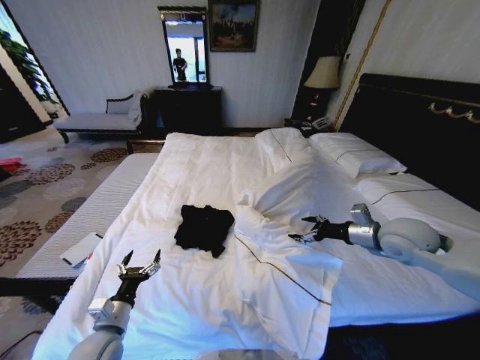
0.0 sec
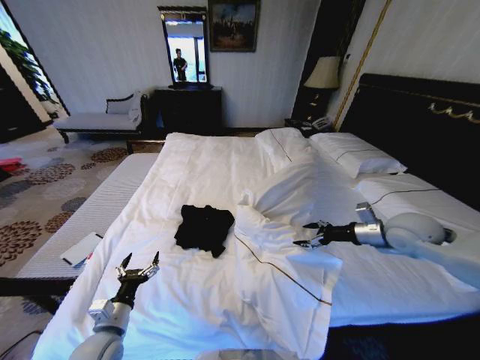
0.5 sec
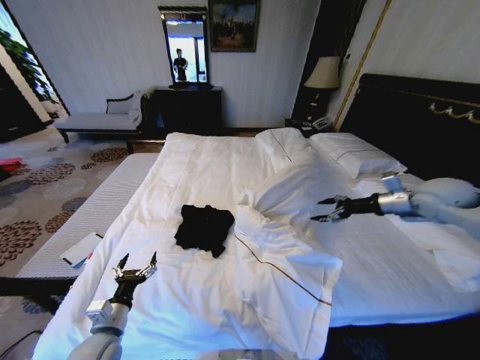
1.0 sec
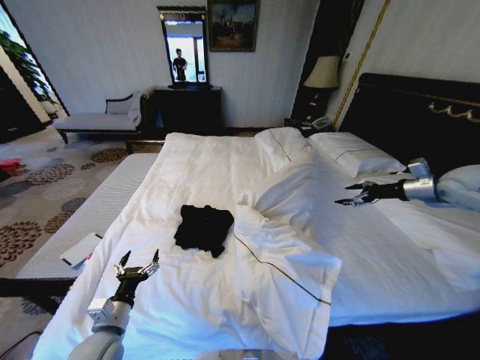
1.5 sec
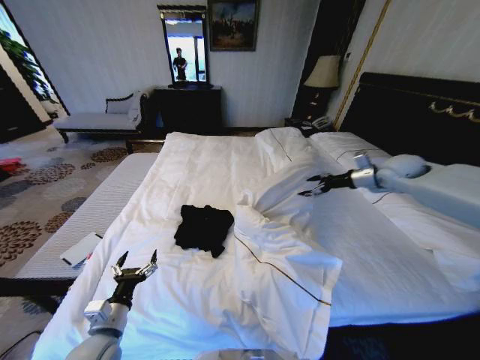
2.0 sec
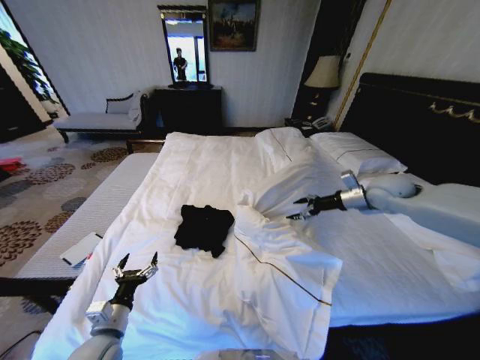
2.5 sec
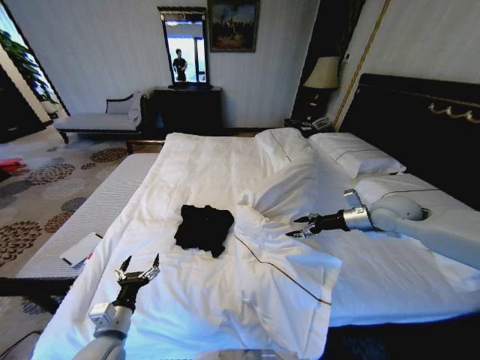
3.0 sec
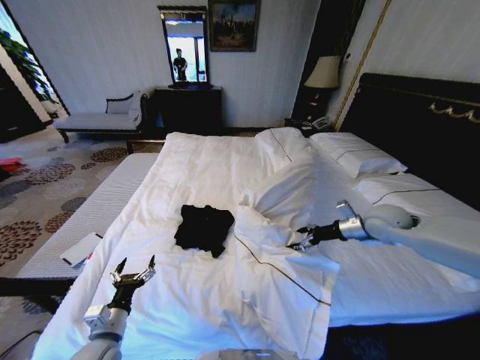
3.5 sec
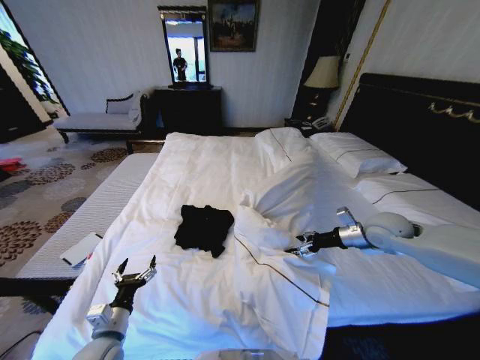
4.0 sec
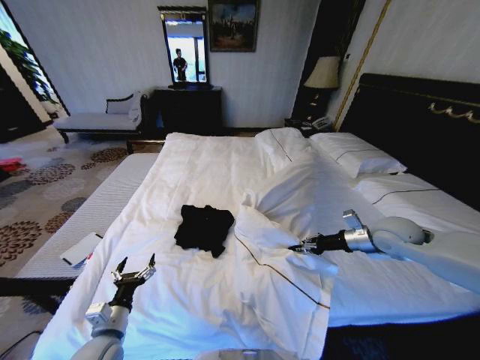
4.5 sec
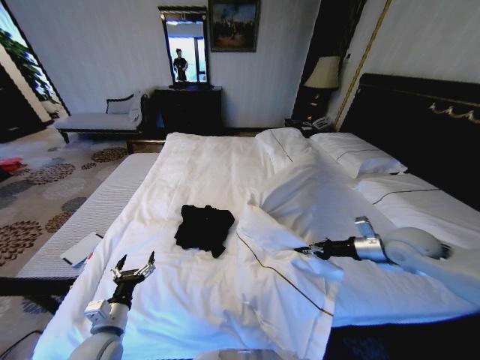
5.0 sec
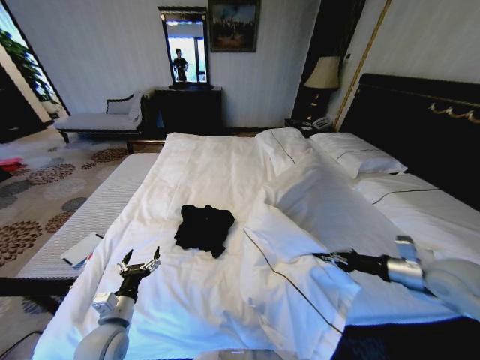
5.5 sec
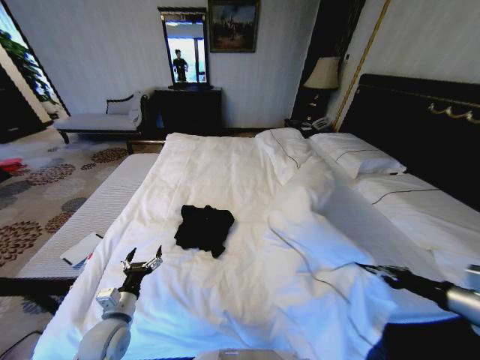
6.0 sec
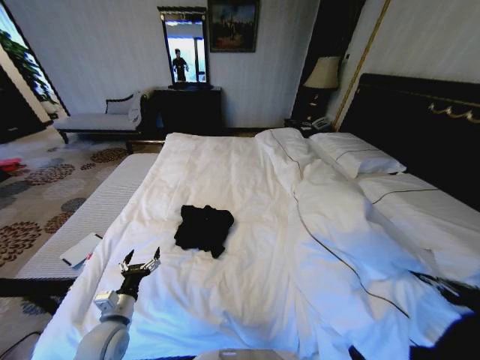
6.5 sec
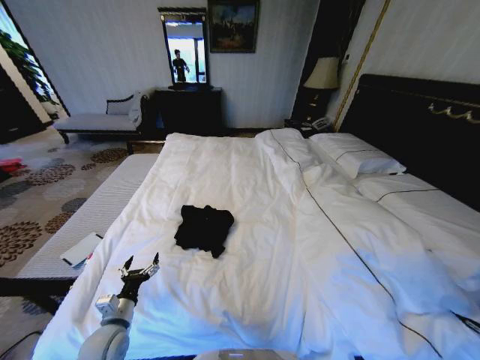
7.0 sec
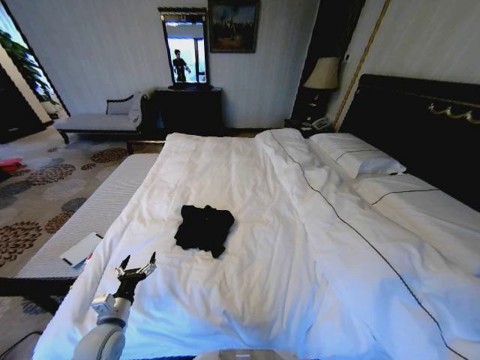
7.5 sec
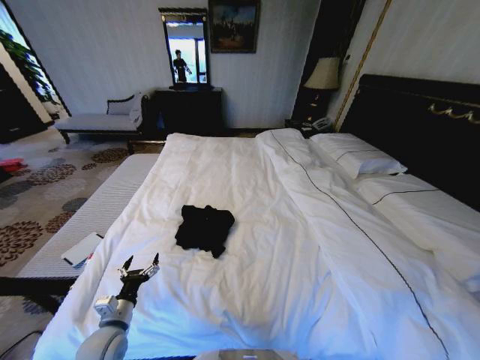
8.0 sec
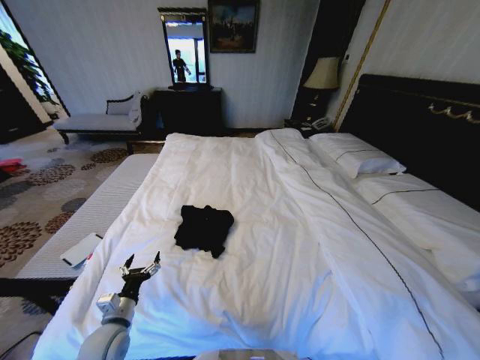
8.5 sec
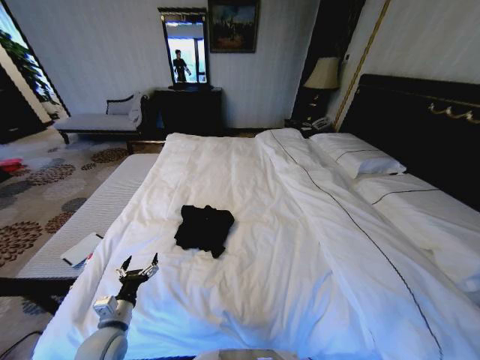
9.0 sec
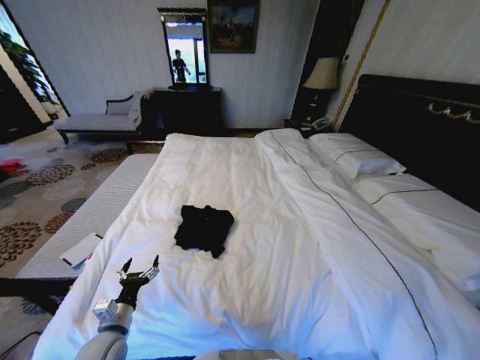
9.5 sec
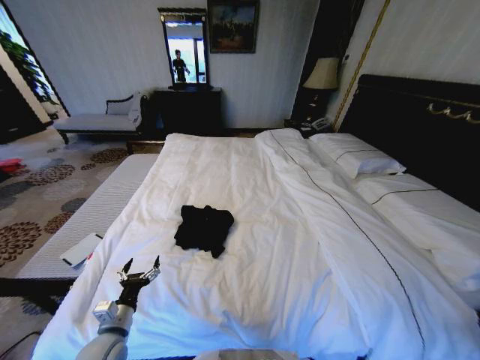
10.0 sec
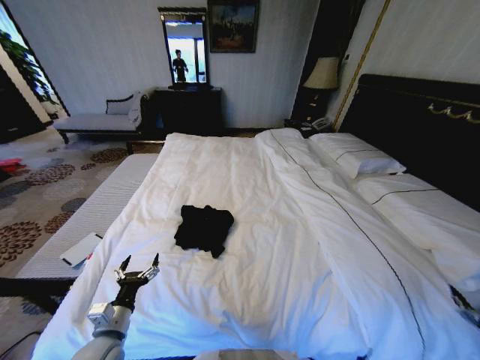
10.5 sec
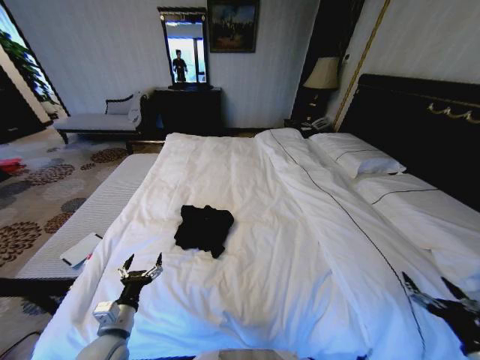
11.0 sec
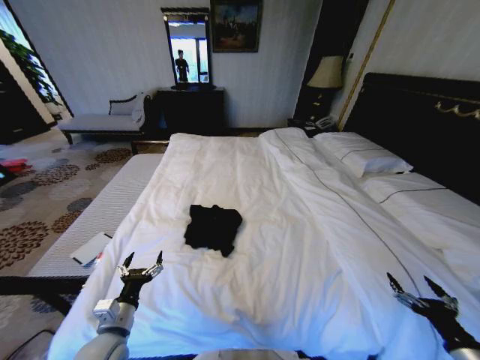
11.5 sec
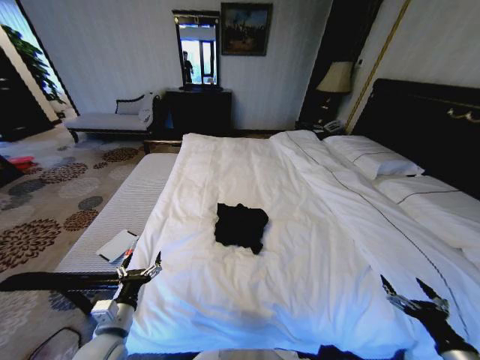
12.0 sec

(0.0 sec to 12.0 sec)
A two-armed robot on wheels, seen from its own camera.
Task of the whole recording: Fold the clothes on the bed.
0.0 sec - 2.0 sec: The right gripper shifts approximately 20 cm forward and to the right.
2.0 sec - 4.0 sec: The right gripper heads backward, downward and to the left, covering approximately 20 cm.
4.0 sec - 6.0 sec: The right gripper heads backward and to the right, covering roughly 25 cm, and closes up.
6.0 sec - 8.0 sec: The right gripper heads backward, to the right and downward, covering roughly 40 cm.
8.0 sec - 10.0 sec: The right gripper ends up roughly 5 cm from where it was, and opens.
10.0 sec - 12.0 sec: The right gripper goes about 25 cm forward and to the left.

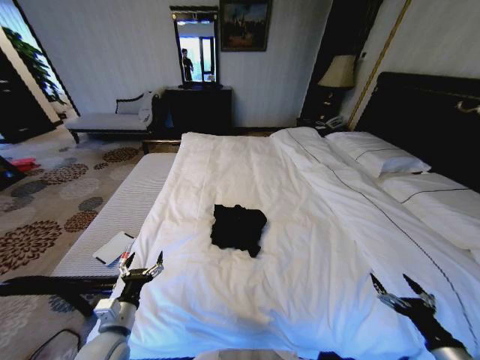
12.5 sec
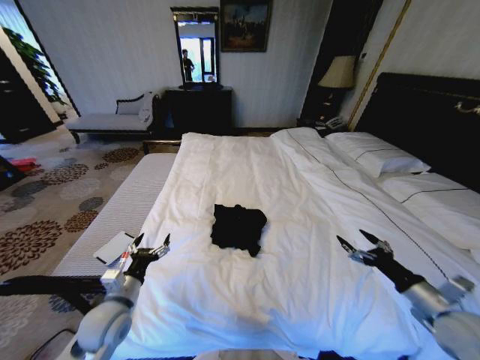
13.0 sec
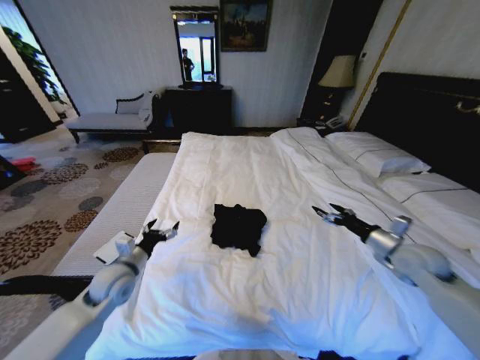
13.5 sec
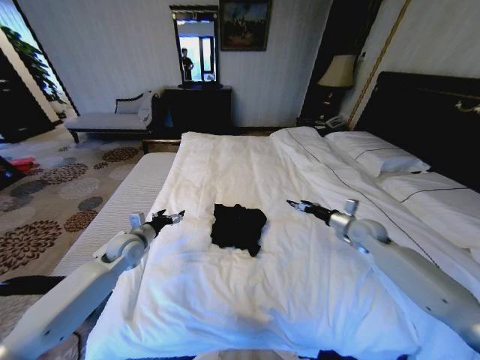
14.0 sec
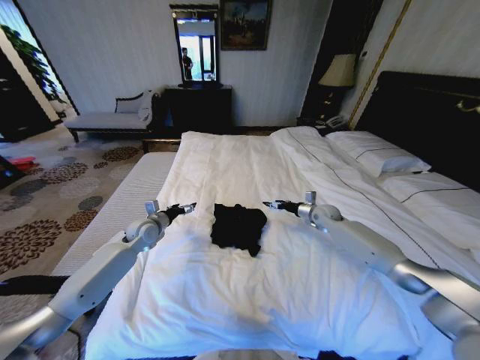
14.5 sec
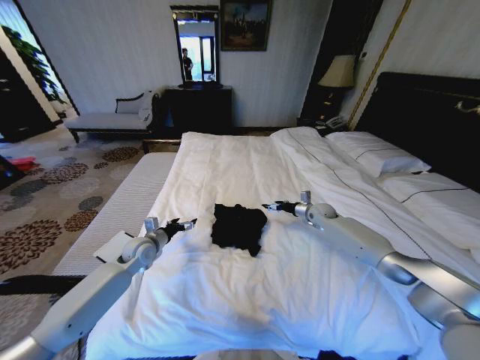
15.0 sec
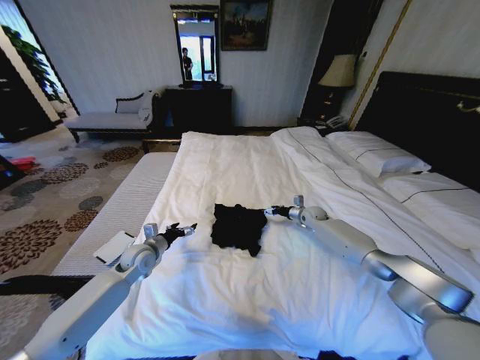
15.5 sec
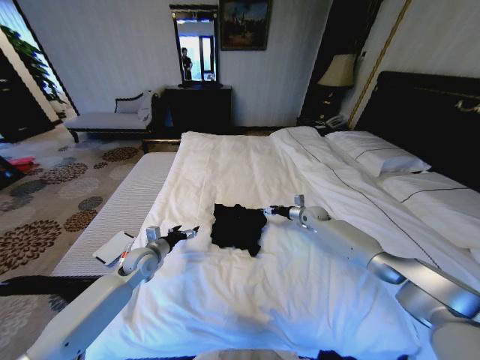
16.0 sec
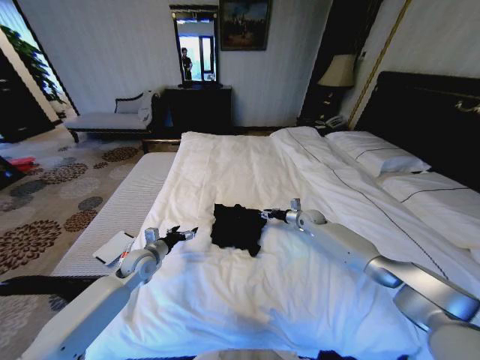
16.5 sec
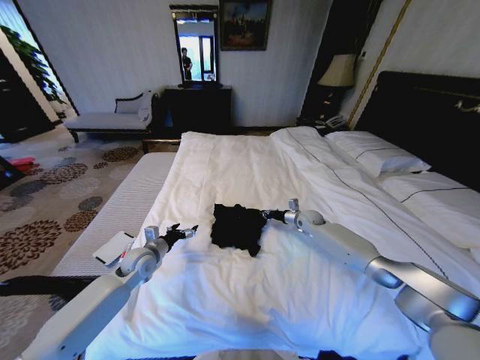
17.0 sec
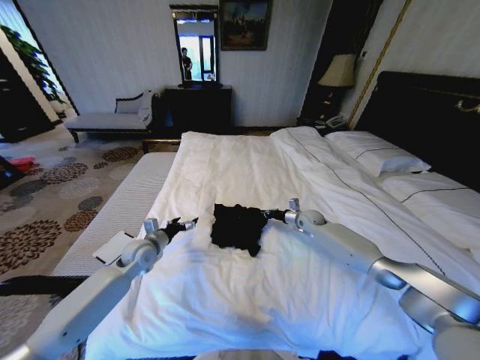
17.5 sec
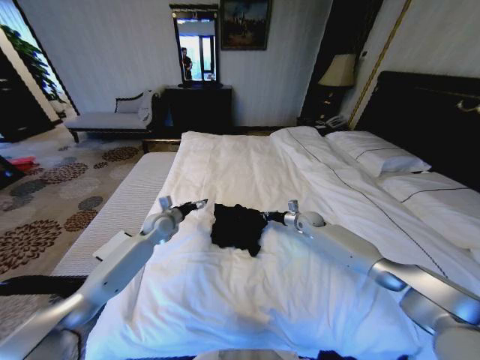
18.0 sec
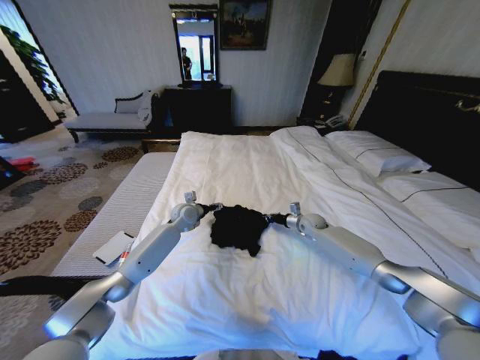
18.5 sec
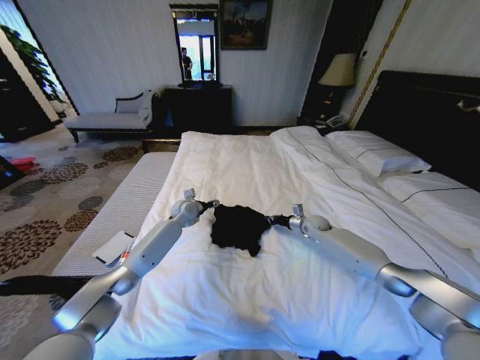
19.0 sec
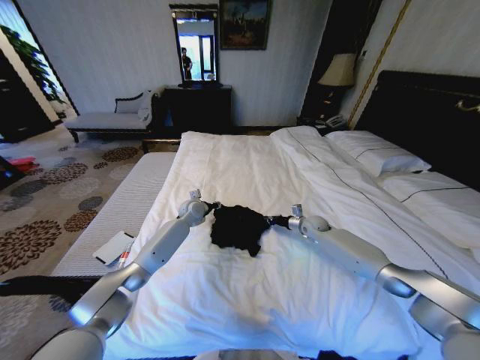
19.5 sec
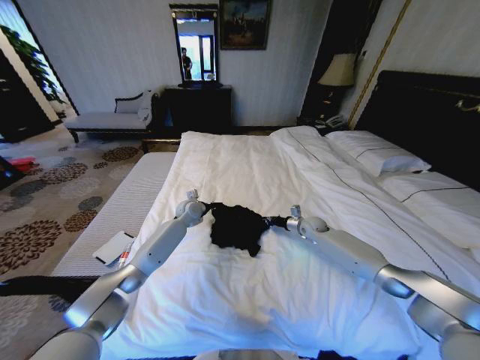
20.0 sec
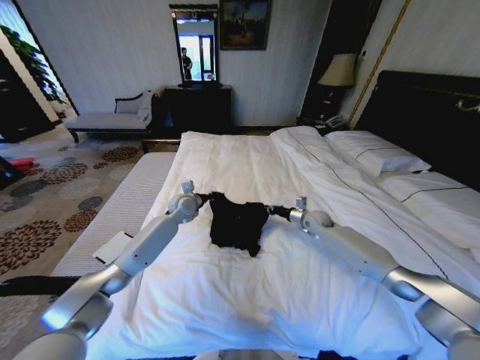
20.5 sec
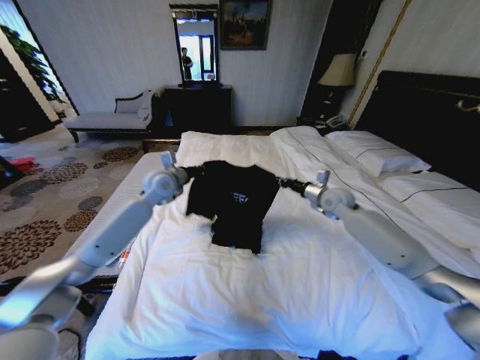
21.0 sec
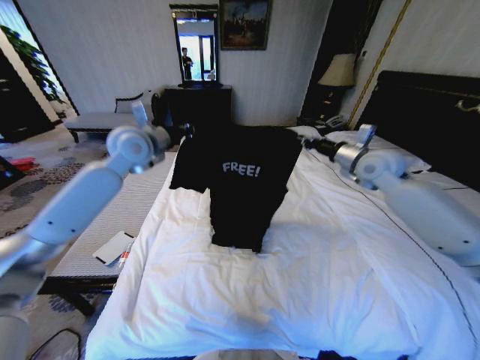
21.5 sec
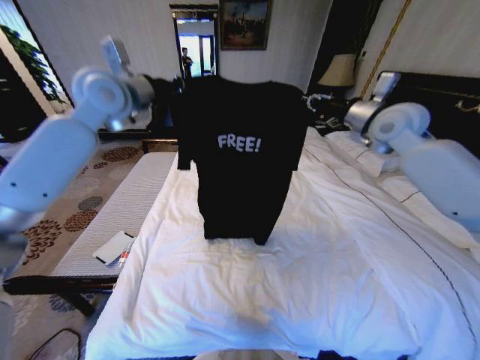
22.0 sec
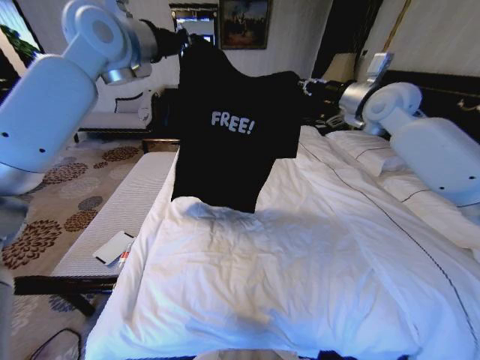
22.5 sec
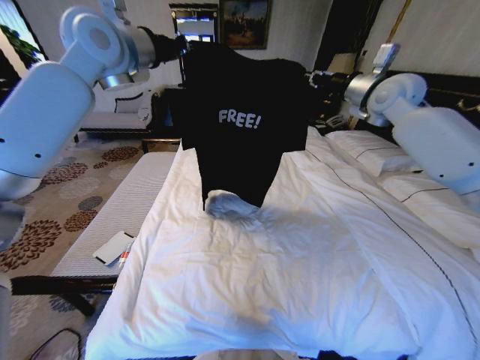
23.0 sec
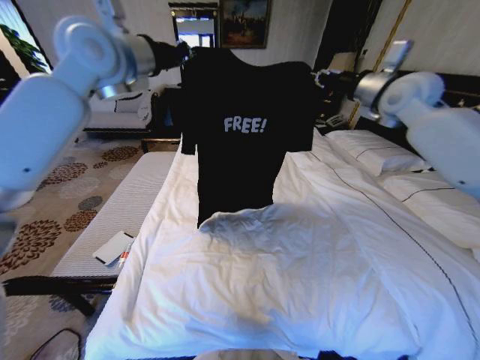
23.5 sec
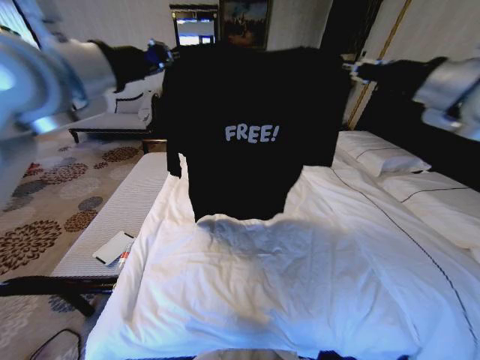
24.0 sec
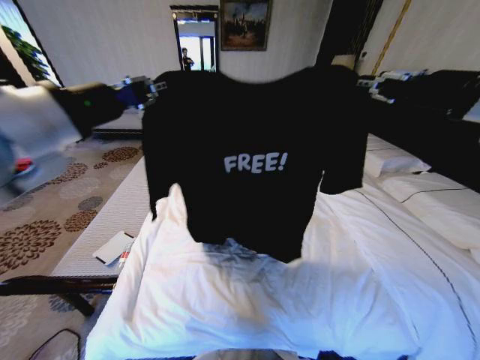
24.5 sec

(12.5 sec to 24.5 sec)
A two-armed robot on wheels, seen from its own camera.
Task of the whole recording: Fold the clothes on the bed.
12.5 sec - 14.5 sec: The left gripper moves forward, approximately 30 cm. Meanwhile the right gripper is displaced forward by some 50 cm.
14.5 sec - 16.5 sec: The right gripper ends up approximately 5 cm from where it was. Meanwhile the left gripper is displaced backward by some 10 cm.
16.5 sec - 18.5 sec: The left gripper travels forward and to the right by approximately 20 cm; the right gripper closes.
18.5 sec - 20.5 sec: The left gripper closes.
20.5 sec - 22.5 sec: Both grippers travel together upward, about 40 cm.
22.5 sec - 24.5 sec: Both grippers move backward, about 25 cm.

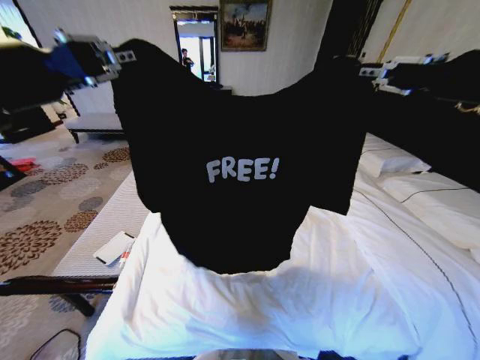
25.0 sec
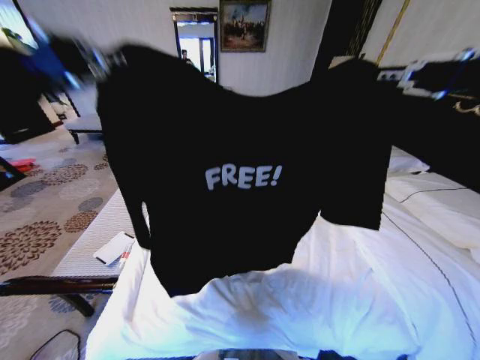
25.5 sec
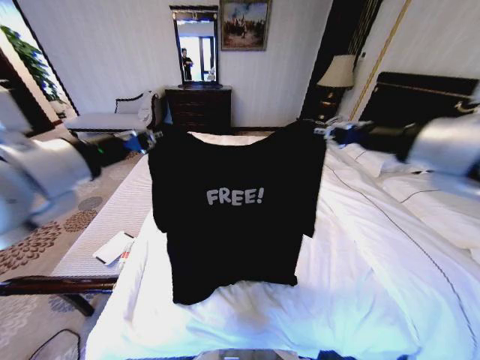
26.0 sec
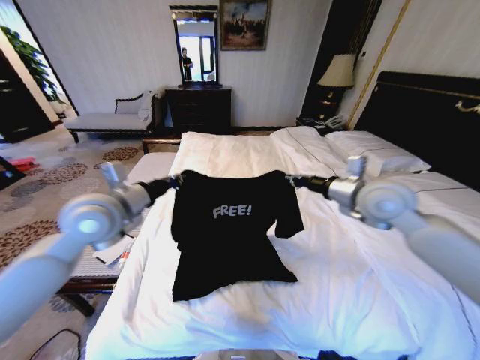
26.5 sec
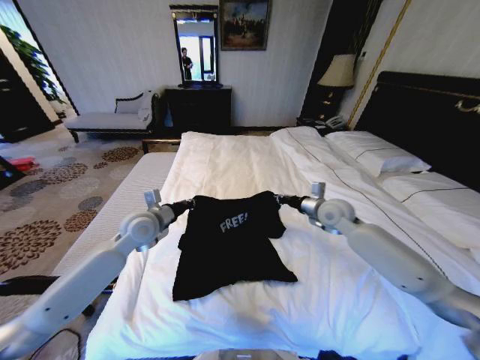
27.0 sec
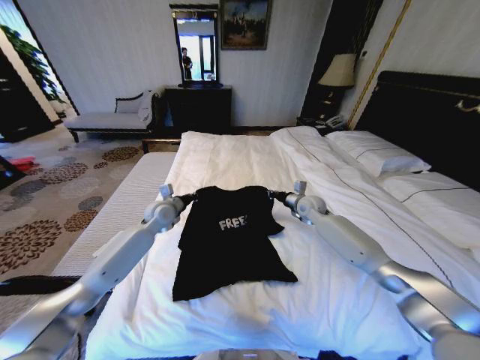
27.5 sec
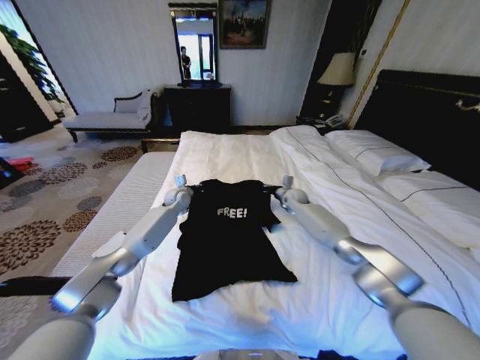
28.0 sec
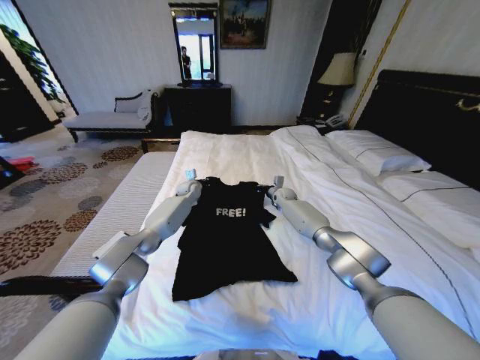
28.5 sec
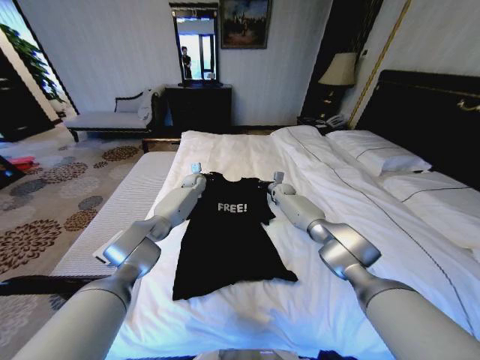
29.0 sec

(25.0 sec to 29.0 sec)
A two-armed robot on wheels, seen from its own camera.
Task of the whole recording: Fold the clothes on the bed.
25.0 sec - 27.0 sec: The two grippers go some 40 cm downward and forward.
27.0 sec - 29.0 sec: The right gripper travels forward and downward by about 25 cm. Meanwhile the left gripper shifts some 30 cm forward.
